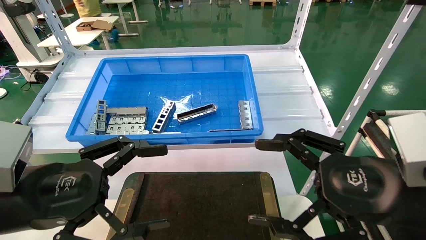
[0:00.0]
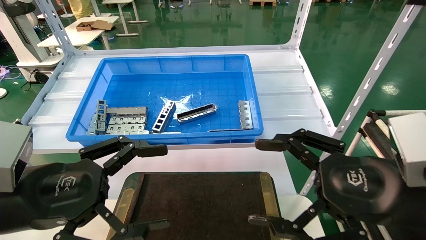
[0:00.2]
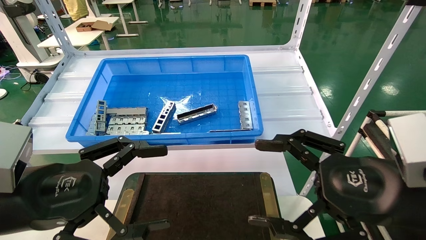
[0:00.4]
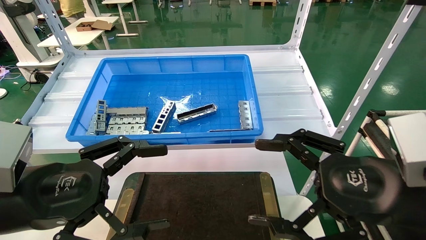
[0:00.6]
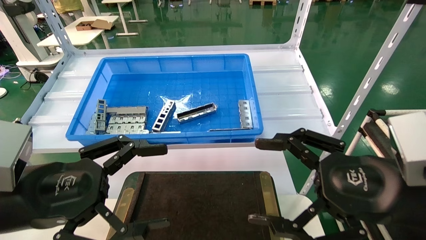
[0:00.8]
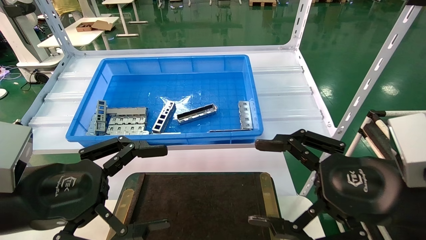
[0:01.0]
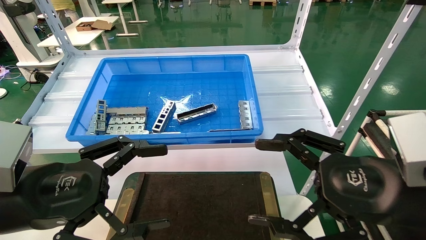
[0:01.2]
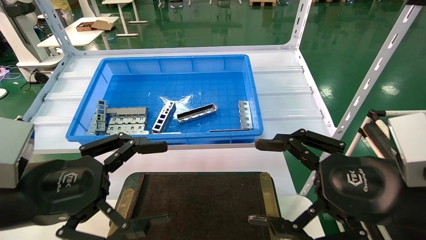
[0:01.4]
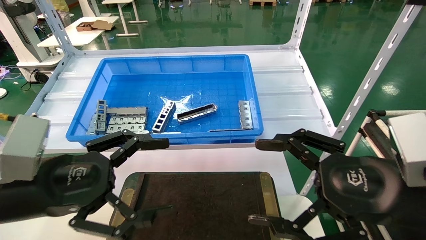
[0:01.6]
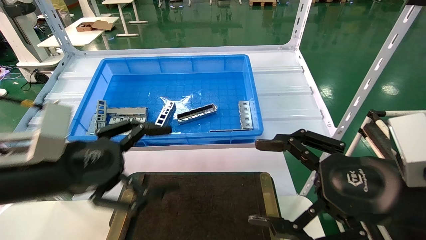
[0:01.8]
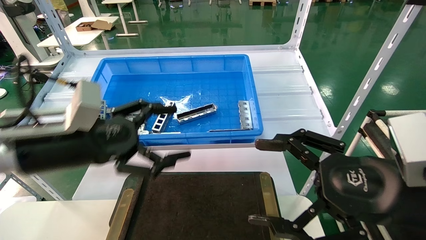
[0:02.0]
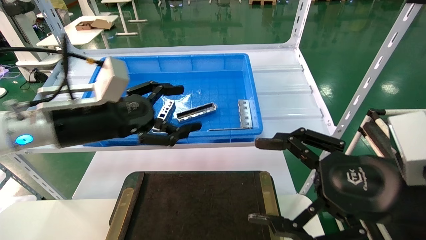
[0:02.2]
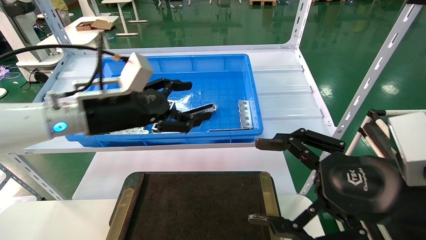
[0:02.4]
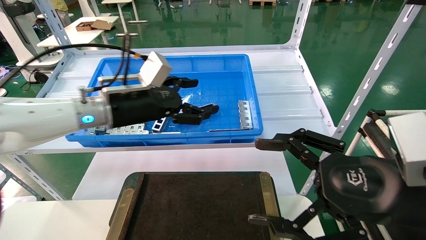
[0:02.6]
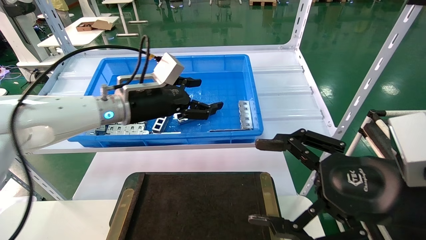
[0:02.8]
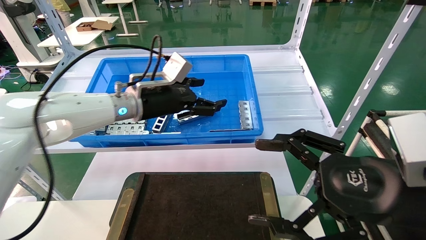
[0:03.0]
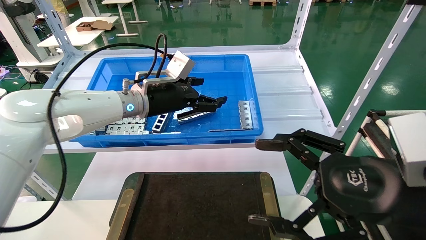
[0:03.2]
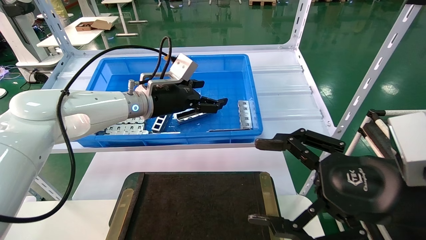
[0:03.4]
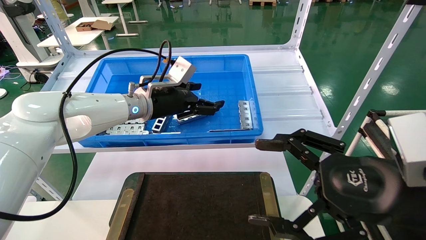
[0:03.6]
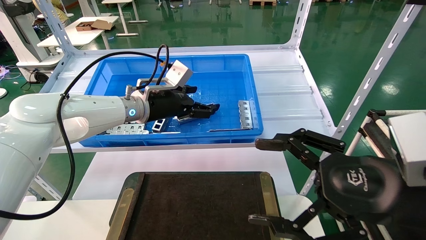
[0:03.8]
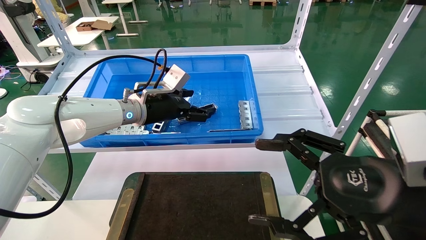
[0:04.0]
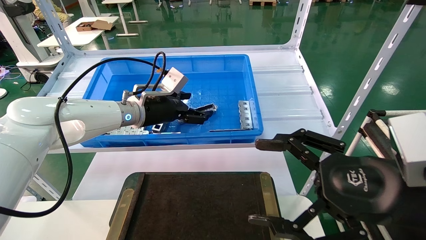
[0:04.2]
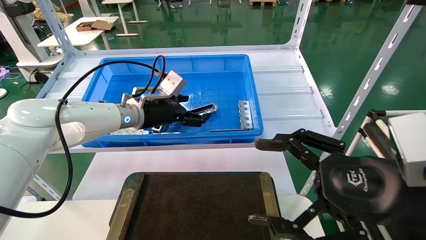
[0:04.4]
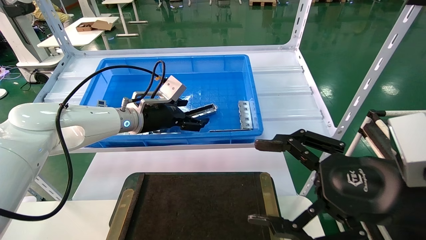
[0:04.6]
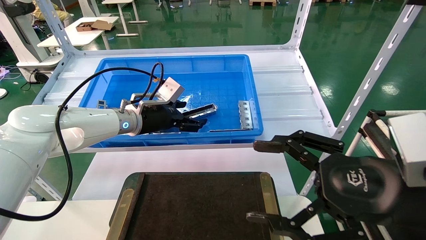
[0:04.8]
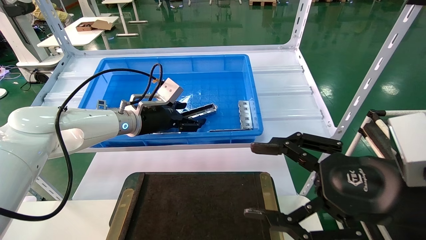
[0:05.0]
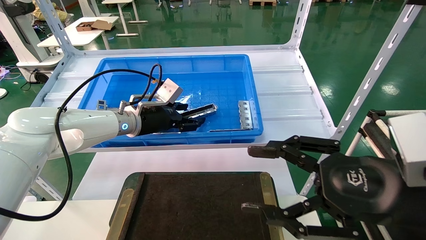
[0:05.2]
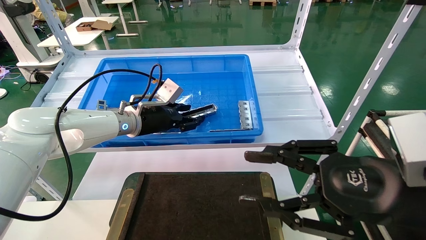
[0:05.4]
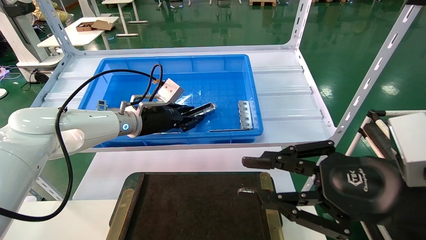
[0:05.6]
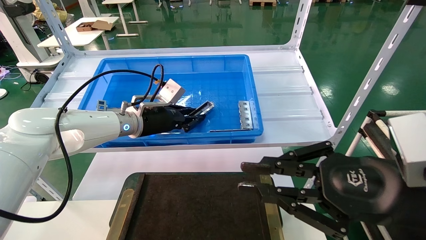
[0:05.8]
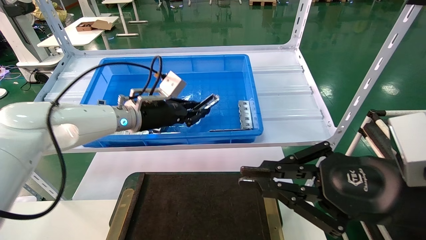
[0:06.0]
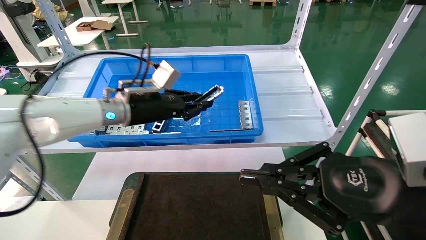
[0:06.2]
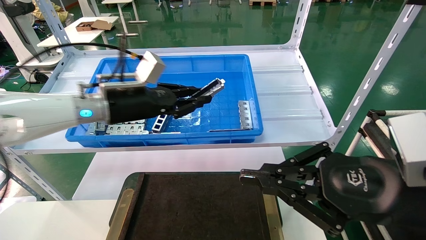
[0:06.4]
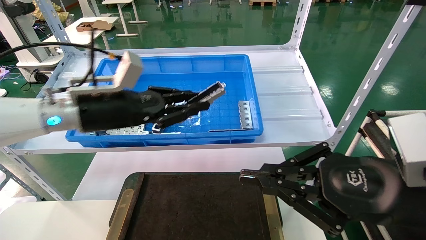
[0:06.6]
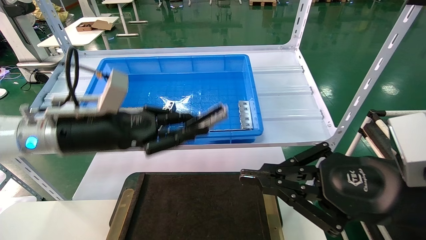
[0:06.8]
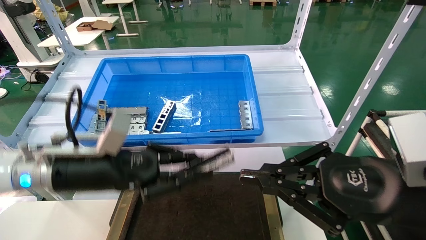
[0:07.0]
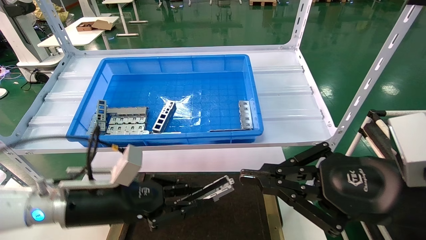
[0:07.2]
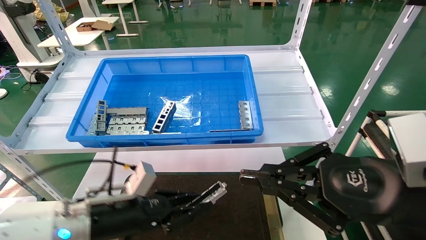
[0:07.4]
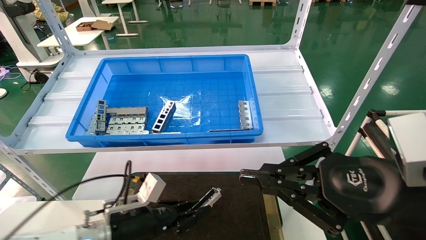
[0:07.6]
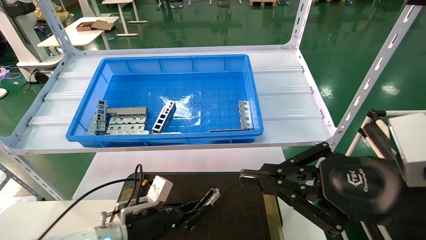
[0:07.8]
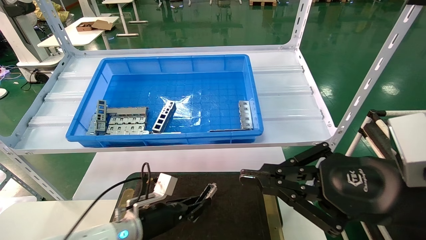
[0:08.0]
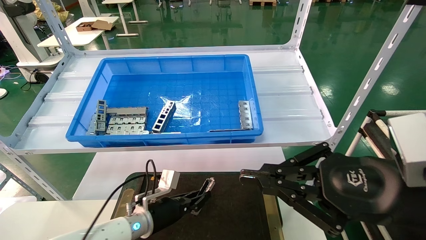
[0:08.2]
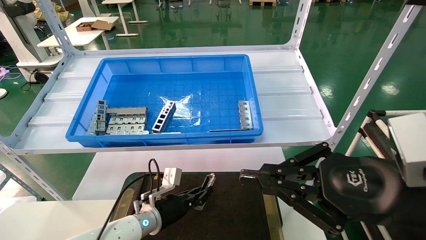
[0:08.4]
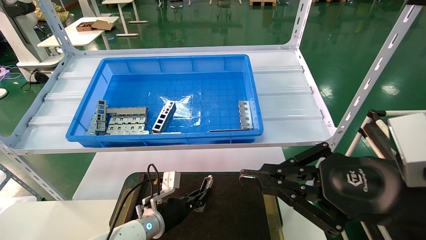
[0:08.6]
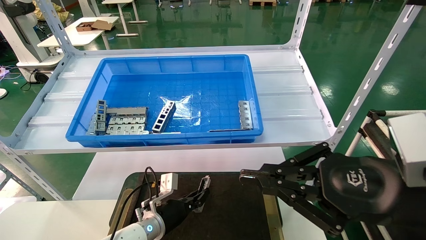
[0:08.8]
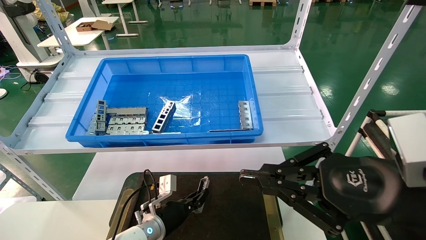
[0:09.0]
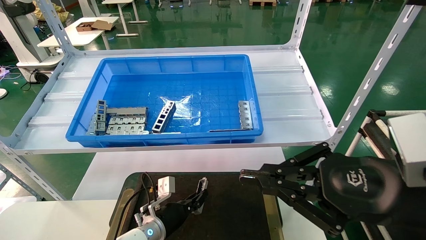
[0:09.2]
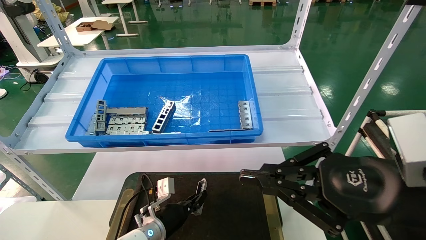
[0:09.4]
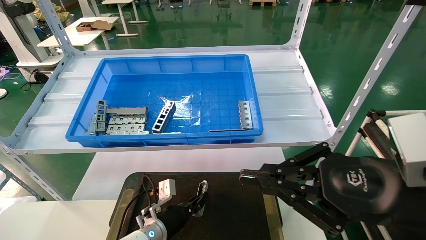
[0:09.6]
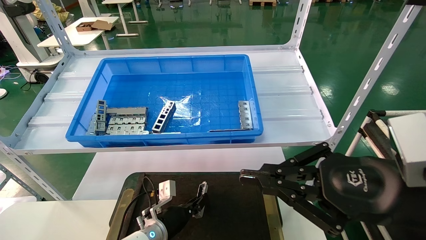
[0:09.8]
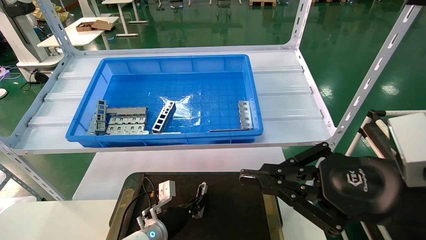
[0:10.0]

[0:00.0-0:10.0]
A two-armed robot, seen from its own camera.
Task of the whole recording: Grasp the part with one hand and place it on the black container.
Step, 0:01.8 to 0:06.2: Pick up the front USB bracket from the feeding area.
0:00.0 to 0:01.4: Neither gripper changes place.
0:01.4 to 0:02.8: The left gripper moves forward and to the right, roughly 25 cm.
0:02.8 to 0:04.2: The left gripper heads forward, covering approximately 5 cm.
0:04.2 to 0:05.8: The right gripper closes. Meanwhile the left gripper closes.
0:05.8 to 0:07.2: The left gripper moves backward and downward, approximately 20 cm.
0:07.2 to 0:08.6: The left gripper travels downward, forward and to the right by roughly 20 cm.
0:08.6 to 0:10.0: There are only small adjustments of the grippers.

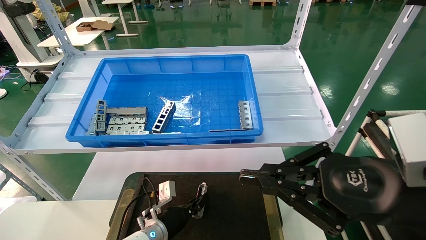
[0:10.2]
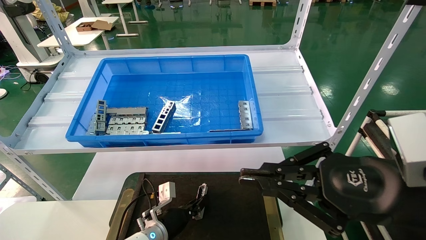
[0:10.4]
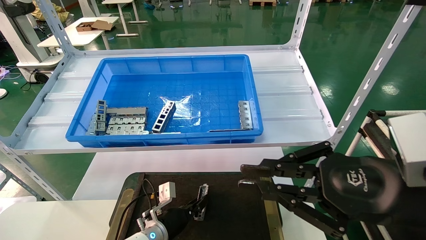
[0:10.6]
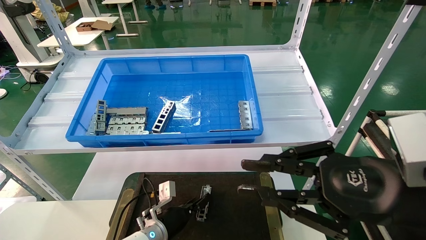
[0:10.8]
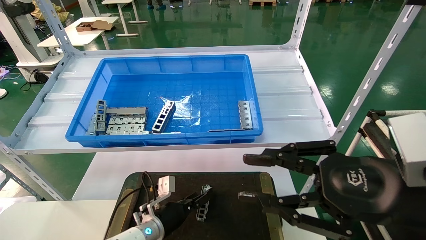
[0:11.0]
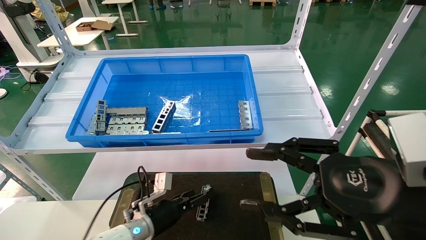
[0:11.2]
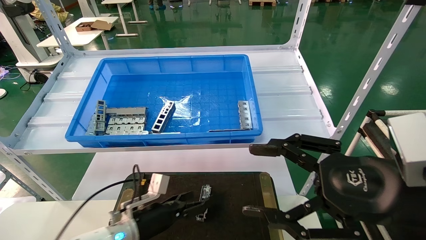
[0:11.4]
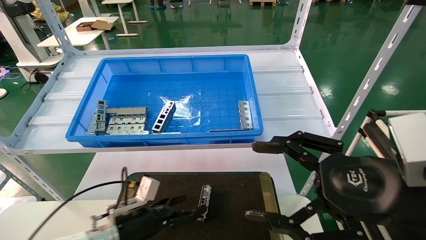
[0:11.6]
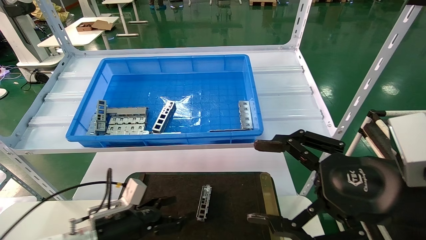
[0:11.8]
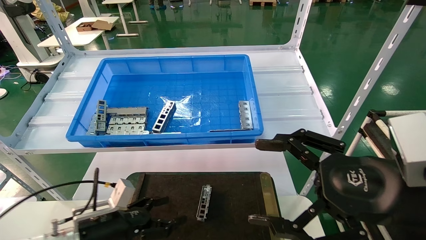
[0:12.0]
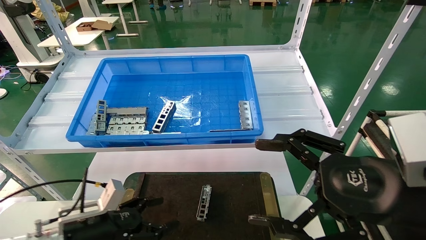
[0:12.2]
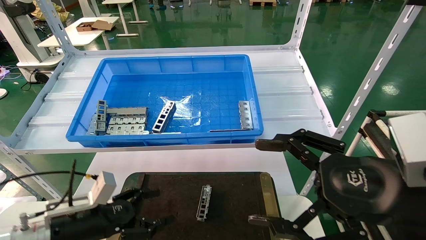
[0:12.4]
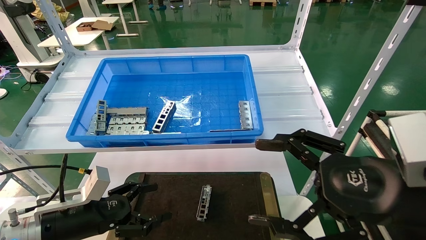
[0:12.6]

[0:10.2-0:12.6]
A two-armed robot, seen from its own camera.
Task of the whole recording: Grasp the part with one hand and place it on the black container.
0:10.2 to 0:11.4: The left gripper moves upward and to the left, roughly 5 cm, and opens up; the right gripper opens.
0:11.4 to 0:12.6: The left gripper is displaced to the left, upward and backward by approximately 15 cm; the right gripper opens up.
